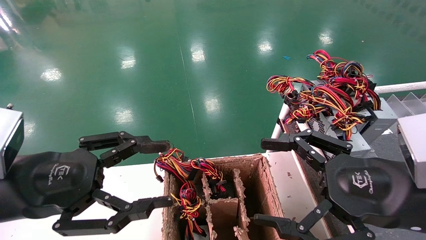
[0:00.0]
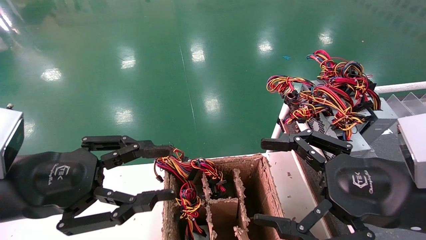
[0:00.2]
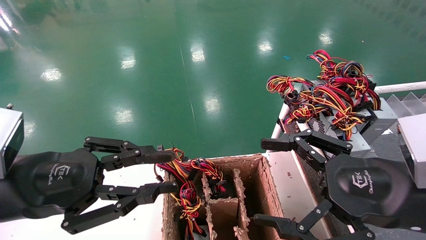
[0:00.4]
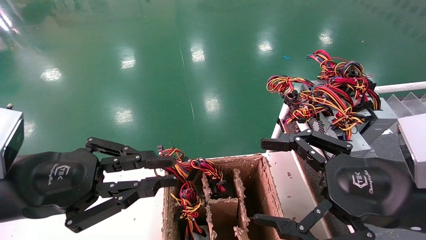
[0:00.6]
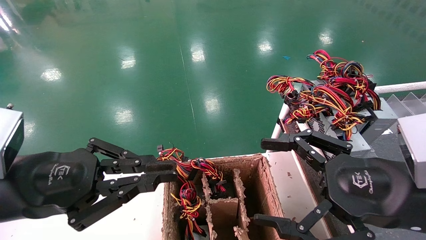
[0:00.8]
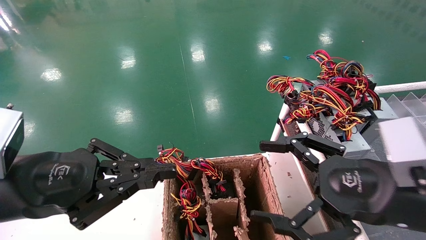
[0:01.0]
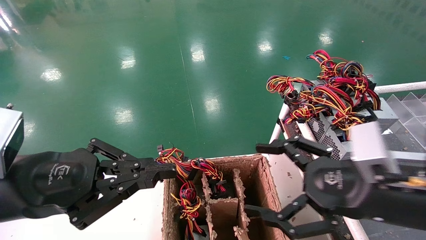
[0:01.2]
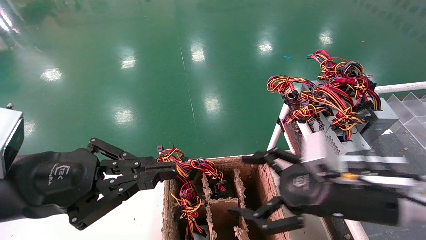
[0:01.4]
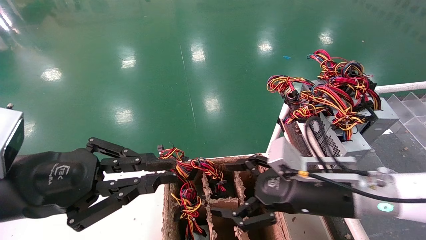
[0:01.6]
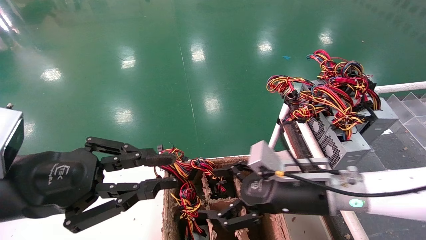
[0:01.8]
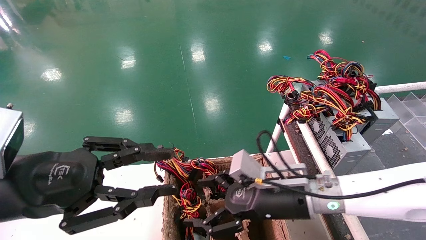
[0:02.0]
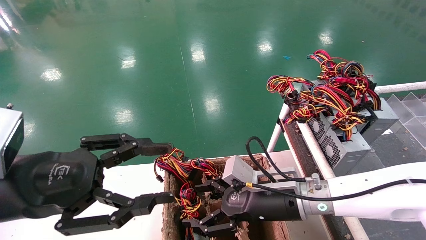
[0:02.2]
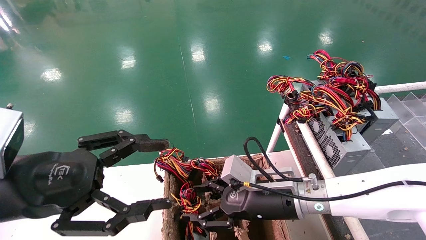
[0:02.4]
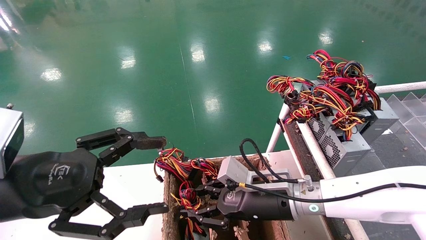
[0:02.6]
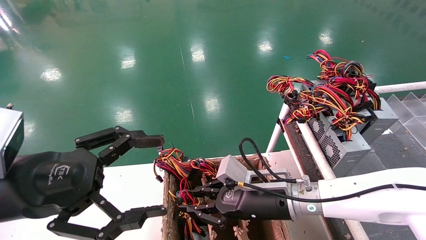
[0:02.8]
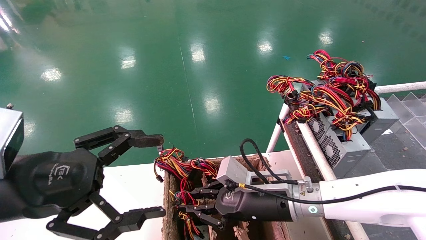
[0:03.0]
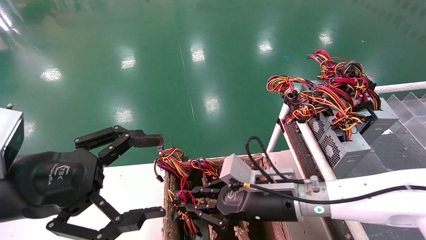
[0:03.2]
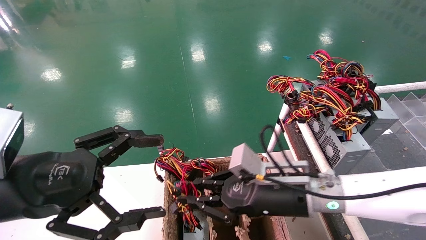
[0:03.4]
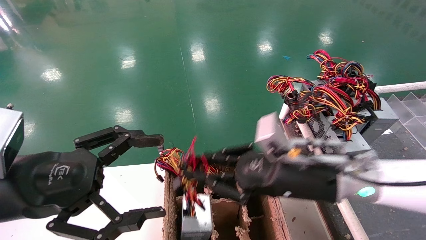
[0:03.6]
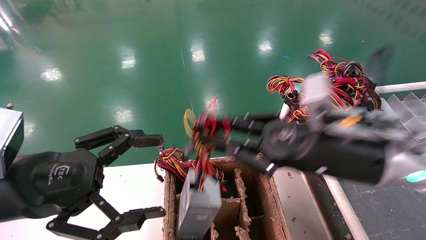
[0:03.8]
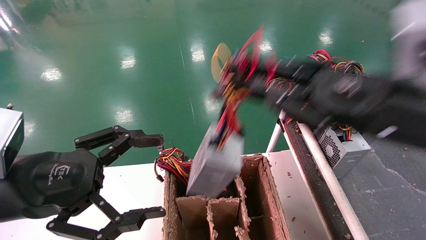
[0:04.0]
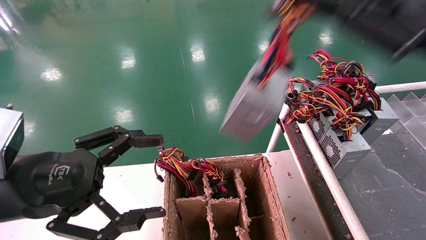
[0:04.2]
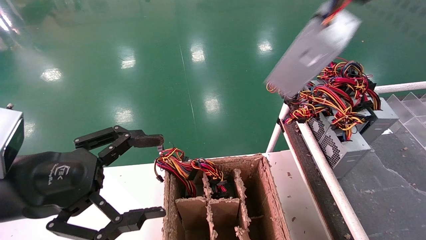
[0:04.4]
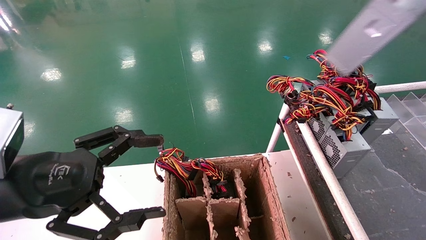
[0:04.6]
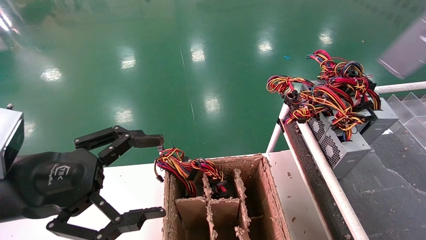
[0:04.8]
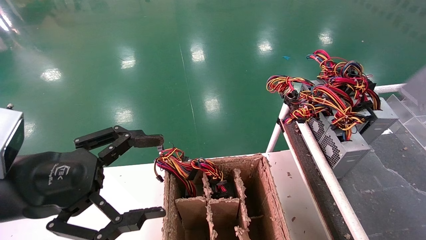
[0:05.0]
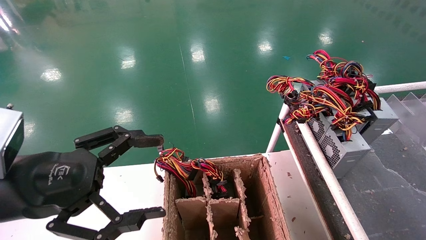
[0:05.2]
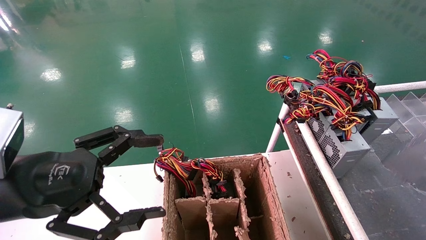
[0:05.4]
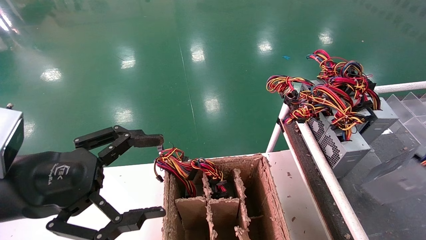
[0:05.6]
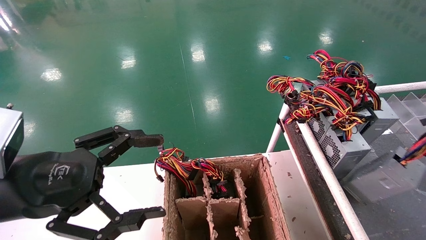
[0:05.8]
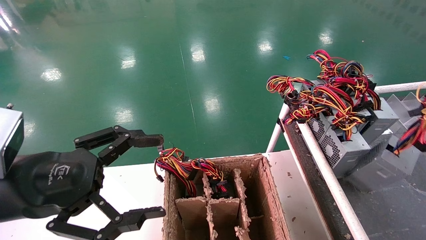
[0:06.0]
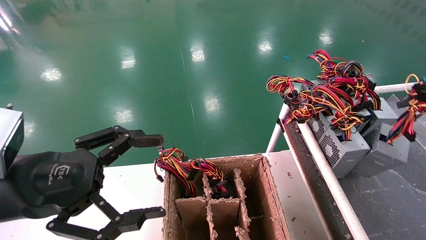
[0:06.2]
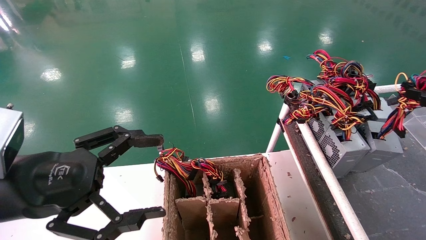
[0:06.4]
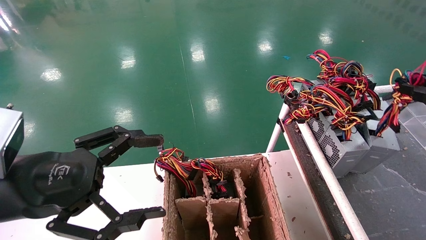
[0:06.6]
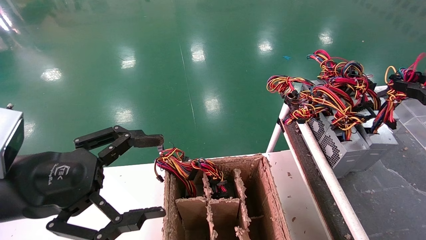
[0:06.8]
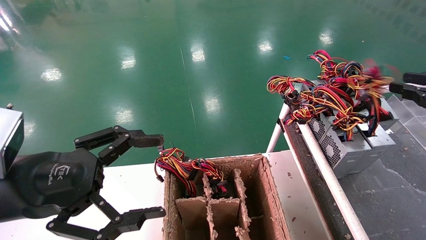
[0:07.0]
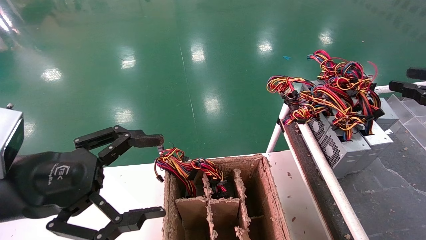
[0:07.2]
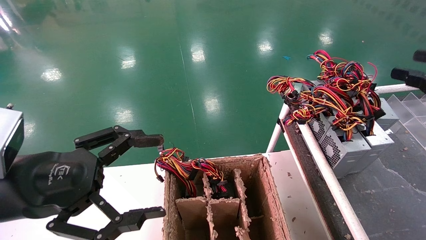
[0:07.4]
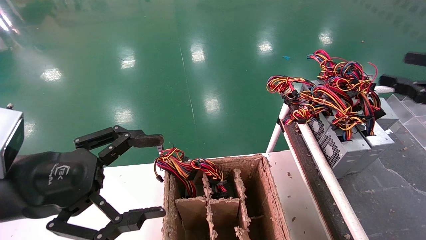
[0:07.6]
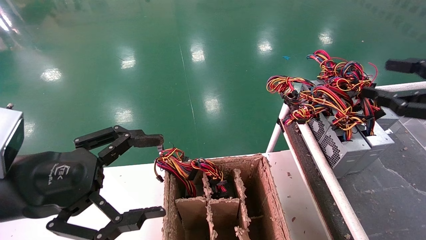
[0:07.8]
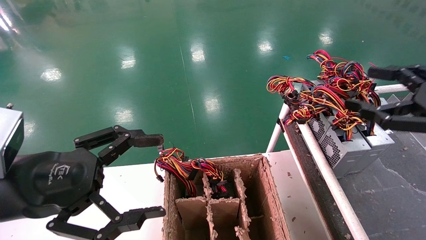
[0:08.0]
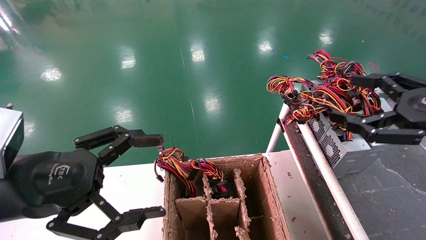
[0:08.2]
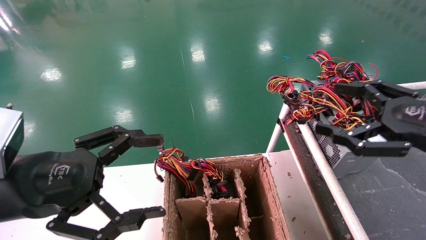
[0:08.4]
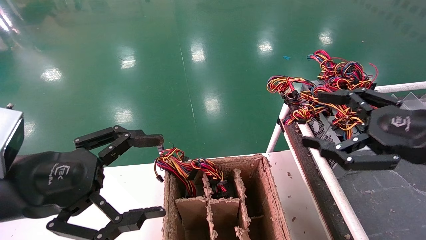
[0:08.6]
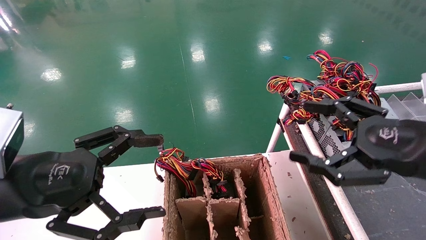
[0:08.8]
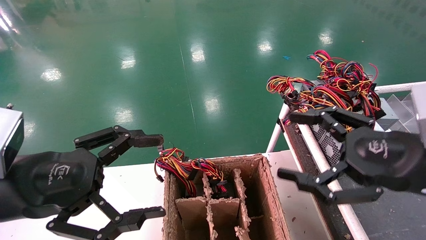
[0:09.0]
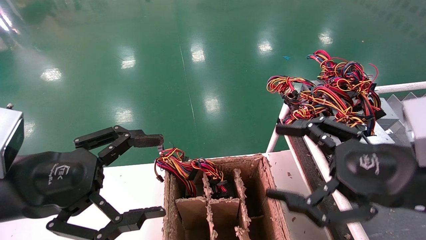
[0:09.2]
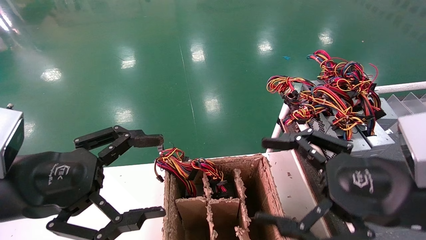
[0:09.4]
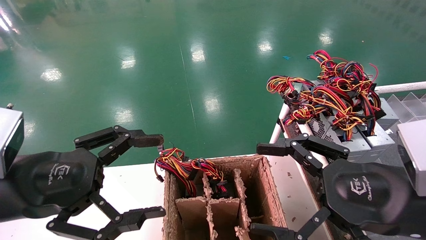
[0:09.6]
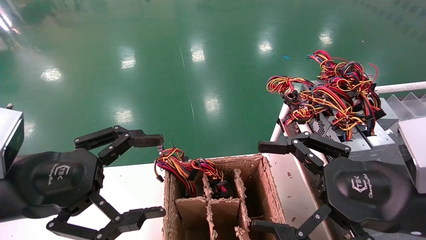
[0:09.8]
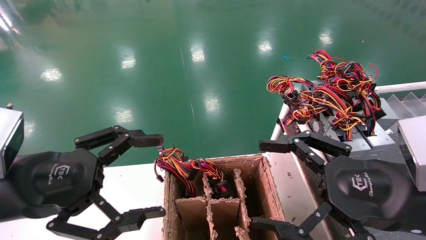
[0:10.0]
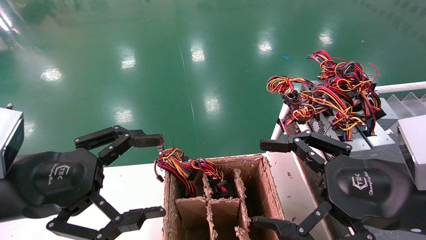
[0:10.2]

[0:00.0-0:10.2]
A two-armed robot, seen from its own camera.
Step, 0:01.6 to 0:03.8: Grab and lift the power supply from the large box.
Step, 0:04.0 to 0:07.4: Place the power supply on the operating table.
0:00.0 to 0:01.4: The right gripper is displaced forward by approximately 5 cm. The left gripper closes.
0:01.4 to 0:03.0: The right gripper is displaced to the left, forward and downward by about 15 cm, and closes its fingers, while the left gripper opens its fingers.
0:03.0 to 0:04.4: The right gripper is displaced upward, to the right and backward by some 40 cm.
0:04.4 to 0:05.8: The right gripper heads to the right and downward, covering approximately 20 cm.
0:05.8 to 0:07.2: The right gripper moves forward, roughly 5 cm.
0:07.2 to 0:08.8: The right gripper goes about 15 cm to the left, and opens up.
0:08.8 to 0:10.2: The right gripper is displaced to the left by some 5 cm.
